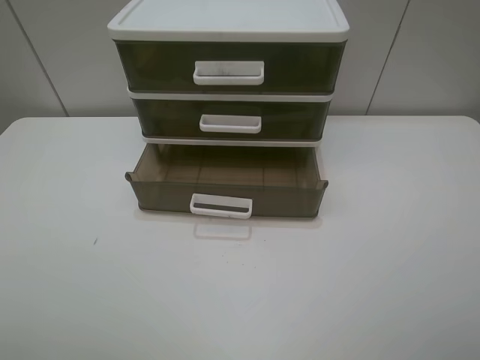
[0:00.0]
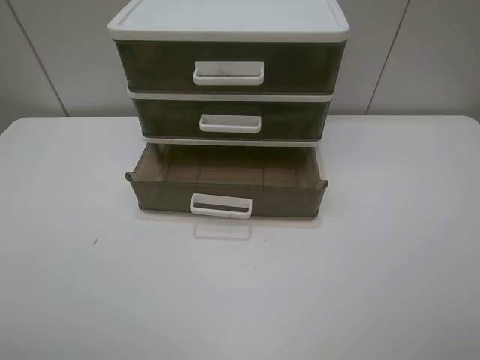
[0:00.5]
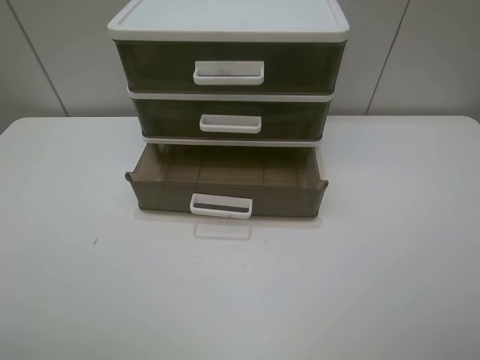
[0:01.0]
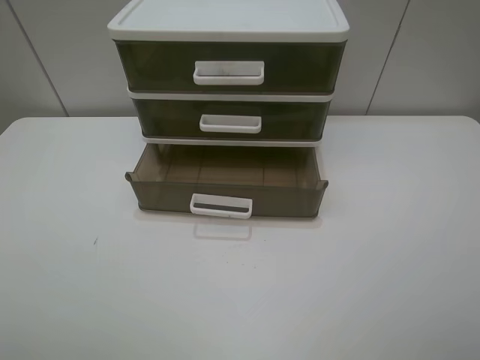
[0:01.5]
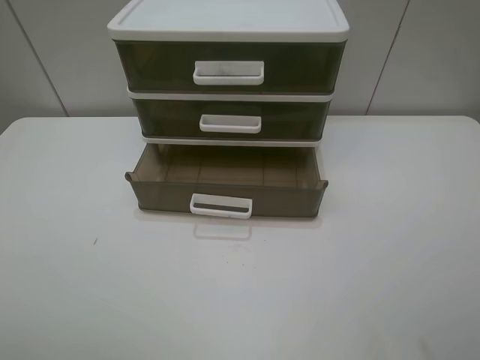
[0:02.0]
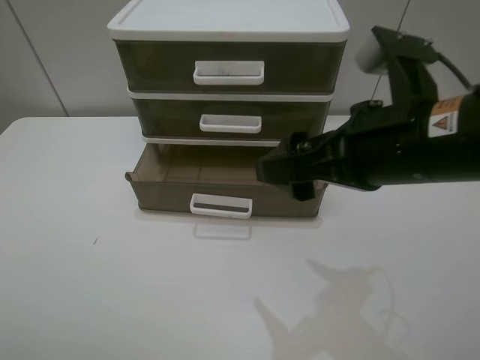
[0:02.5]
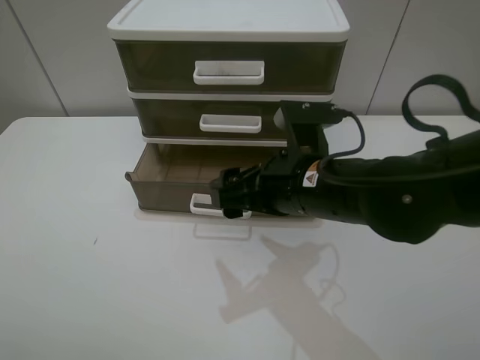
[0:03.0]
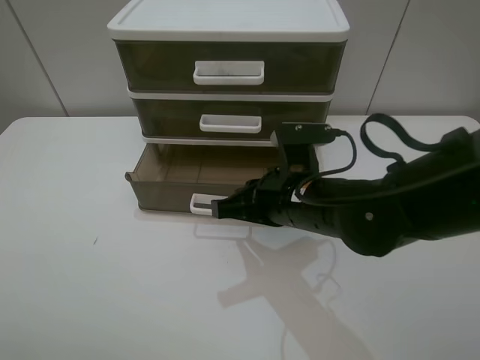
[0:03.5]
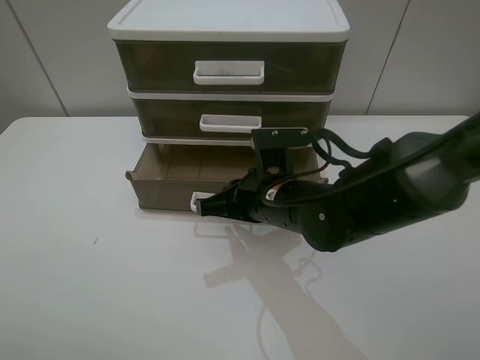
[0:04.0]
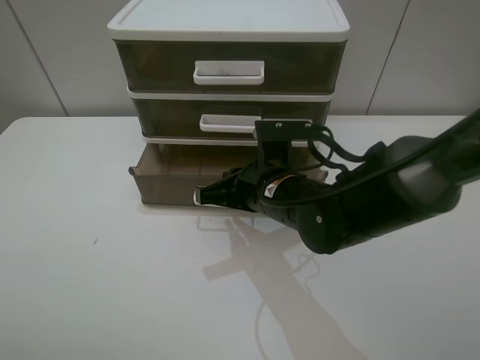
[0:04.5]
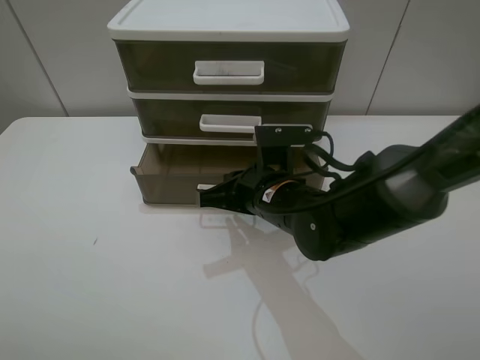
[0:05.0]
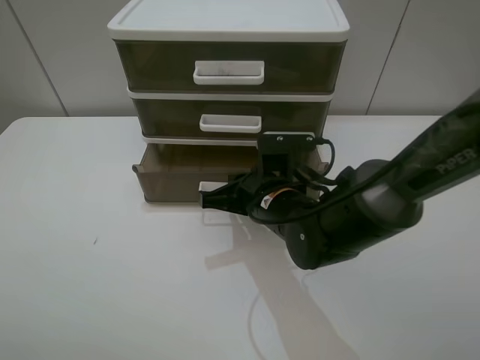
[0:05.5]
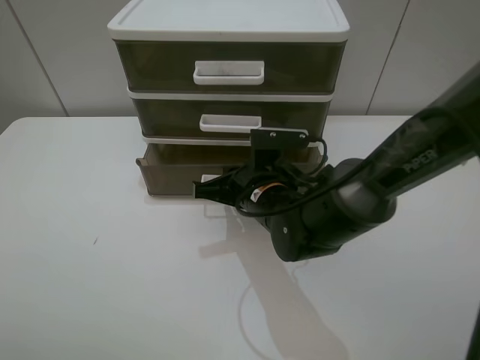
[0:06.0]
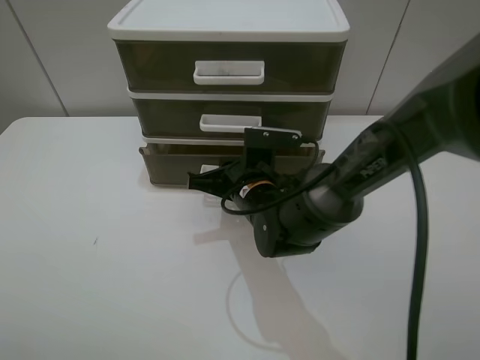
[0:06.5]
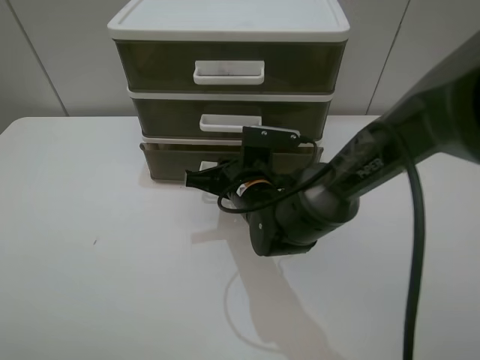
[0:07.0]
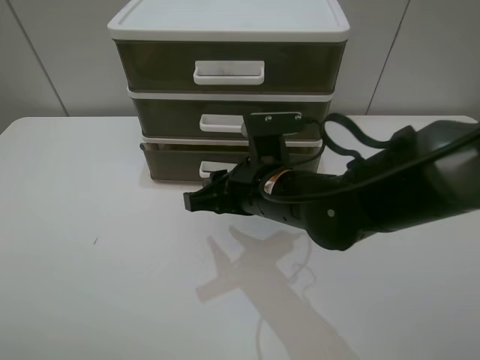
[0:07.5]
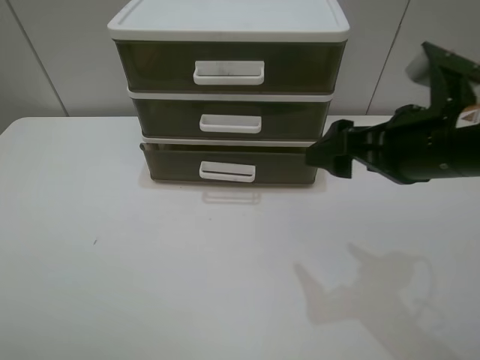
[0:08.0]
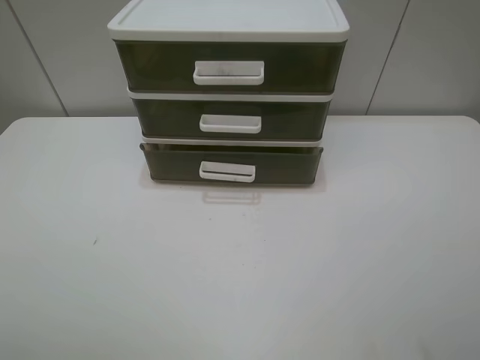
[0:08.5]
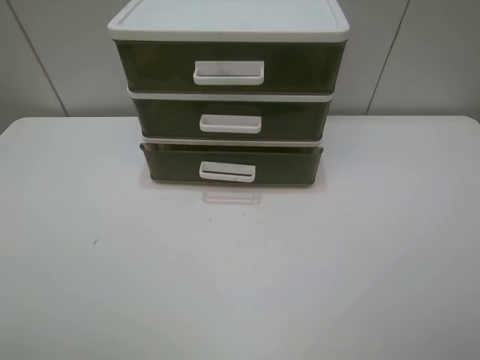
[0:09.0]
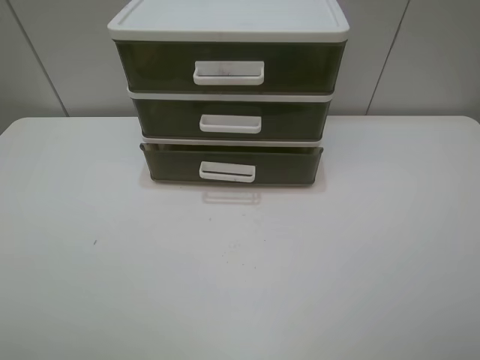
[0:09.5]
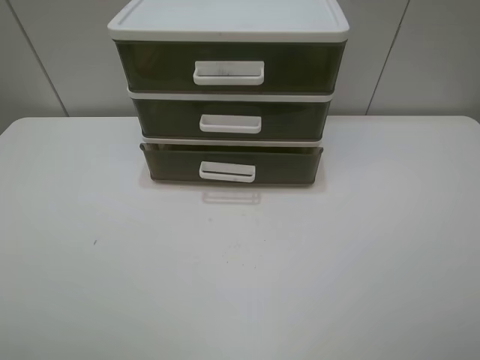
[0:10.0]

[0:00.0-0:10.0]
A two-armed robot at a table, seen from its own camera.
Task of the whole recording: close the bottom drawer.
Step, 0:00.0 to 0:03.5: Use the right gripper to contact the bottom layer of the storage cabinet.
Step, 0:04.0 to 0:06.5: Push the bottom drawer closed.
0:02.0 to 0:04.0: The right gripper travels to the left, downward and forward by approximately 35 cm, and closes its fingers.
0:04.0 to 0:06.0: The grippers stay close to where they were, moving slightly.
0:06.0 to 0:08.0: The right gripper heads to the right, upward and backward, covering some 25 cm, and opens up.
0:08.0 to 0:10.0: The right gripper heads backward and to the right, covering about 20 cm.
